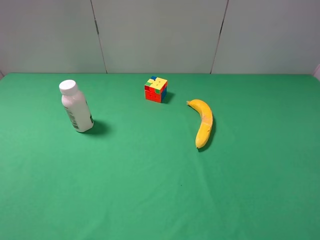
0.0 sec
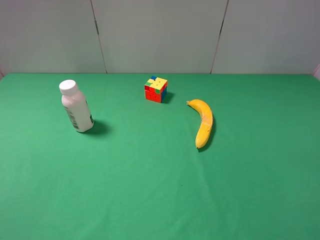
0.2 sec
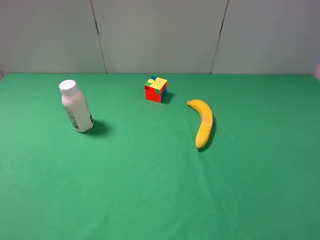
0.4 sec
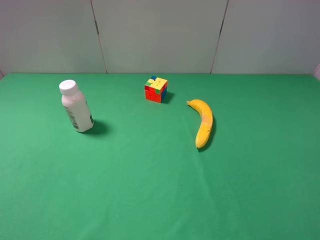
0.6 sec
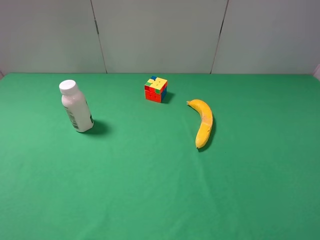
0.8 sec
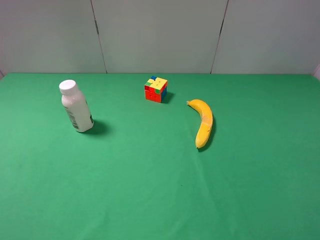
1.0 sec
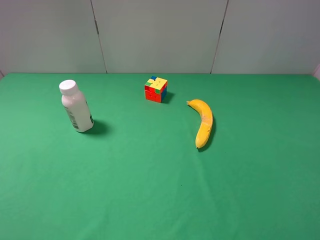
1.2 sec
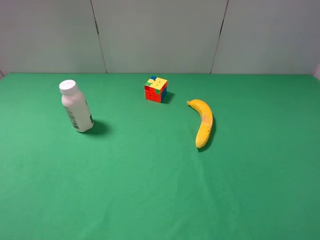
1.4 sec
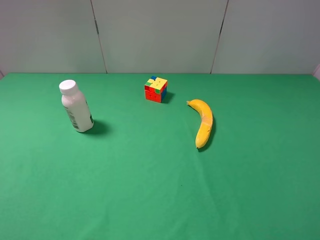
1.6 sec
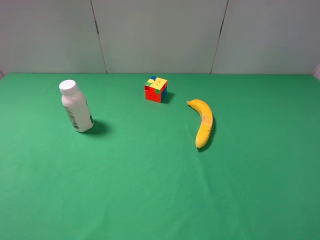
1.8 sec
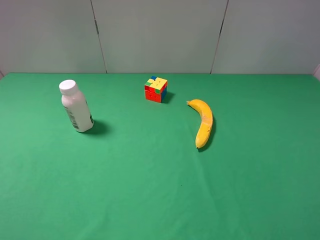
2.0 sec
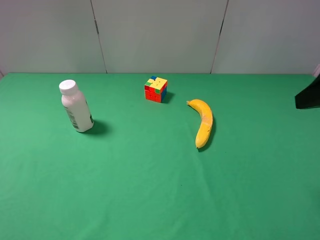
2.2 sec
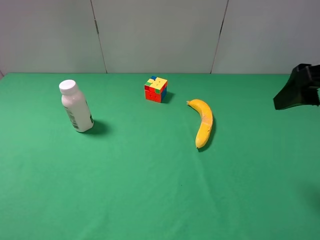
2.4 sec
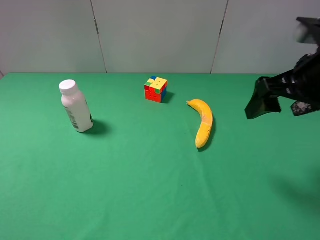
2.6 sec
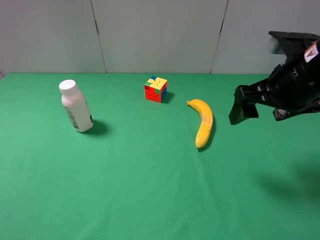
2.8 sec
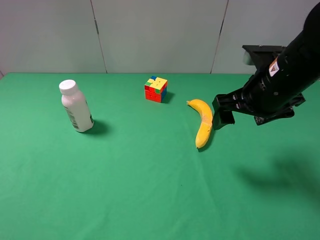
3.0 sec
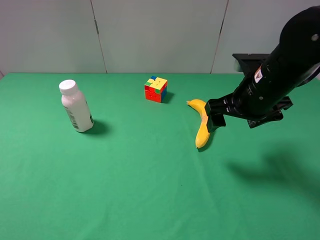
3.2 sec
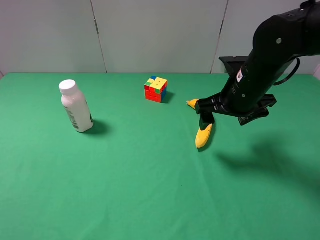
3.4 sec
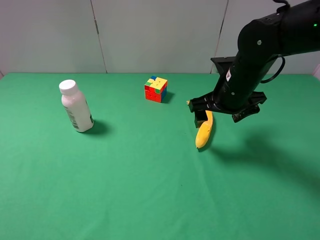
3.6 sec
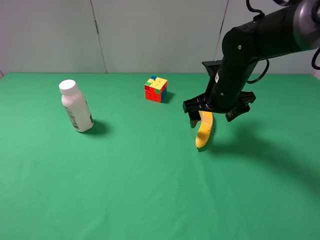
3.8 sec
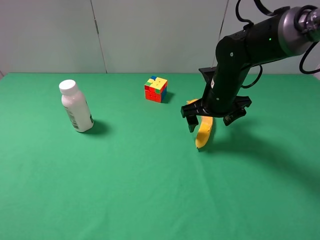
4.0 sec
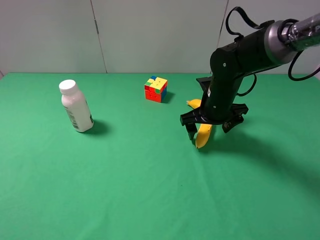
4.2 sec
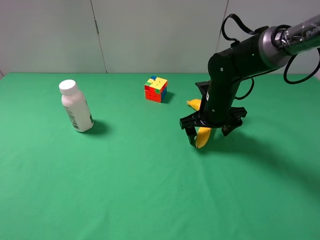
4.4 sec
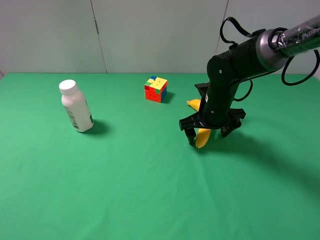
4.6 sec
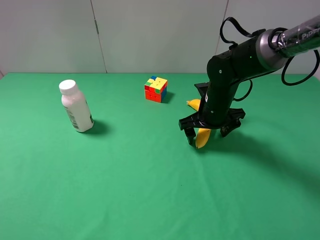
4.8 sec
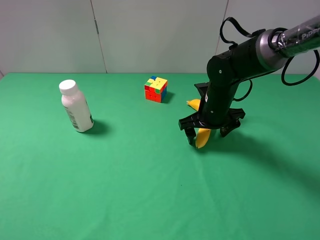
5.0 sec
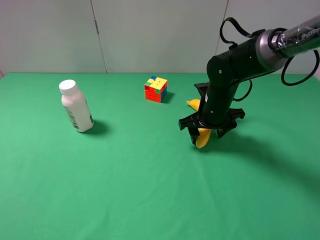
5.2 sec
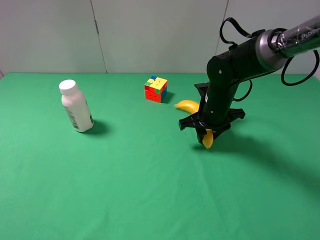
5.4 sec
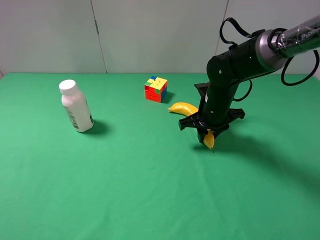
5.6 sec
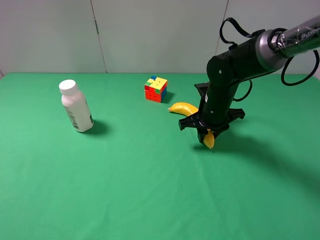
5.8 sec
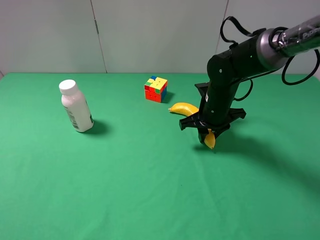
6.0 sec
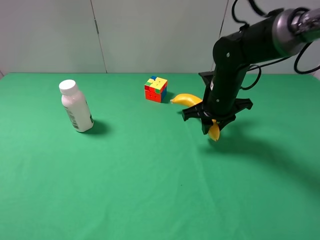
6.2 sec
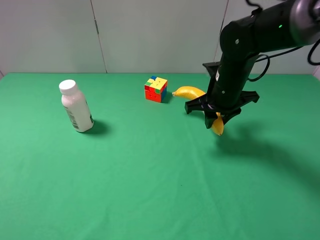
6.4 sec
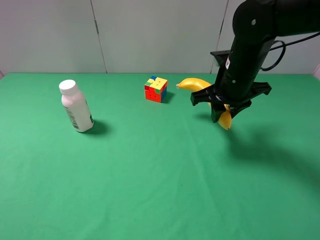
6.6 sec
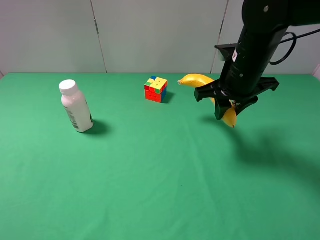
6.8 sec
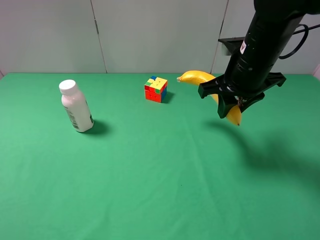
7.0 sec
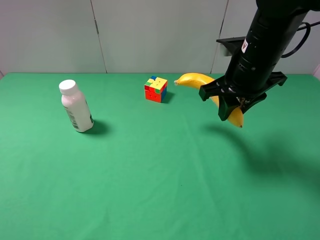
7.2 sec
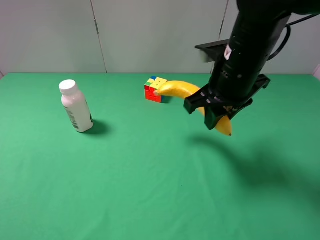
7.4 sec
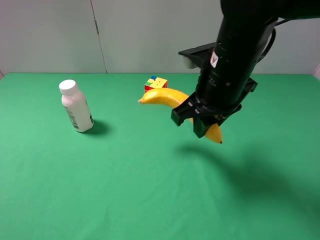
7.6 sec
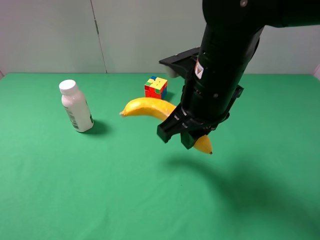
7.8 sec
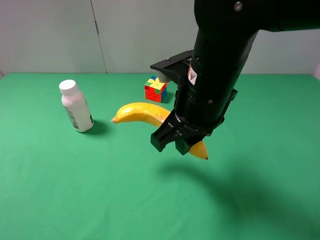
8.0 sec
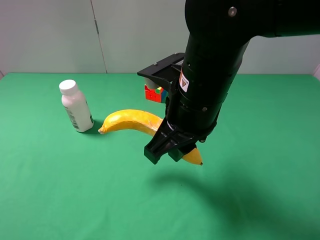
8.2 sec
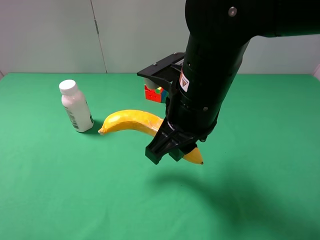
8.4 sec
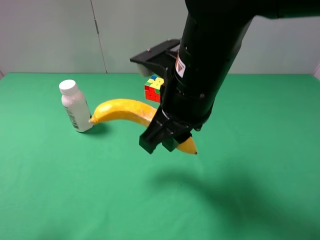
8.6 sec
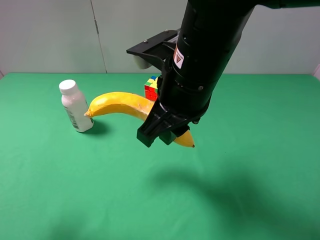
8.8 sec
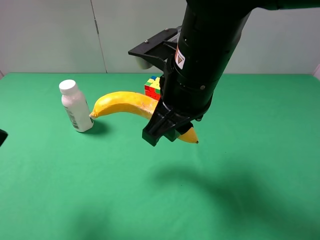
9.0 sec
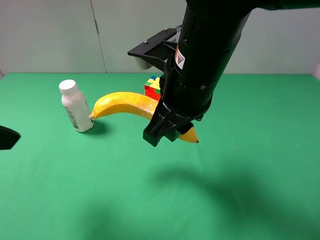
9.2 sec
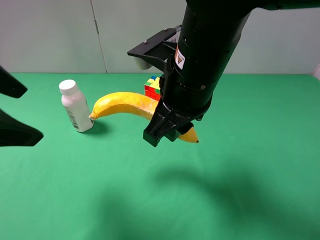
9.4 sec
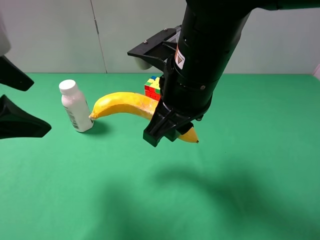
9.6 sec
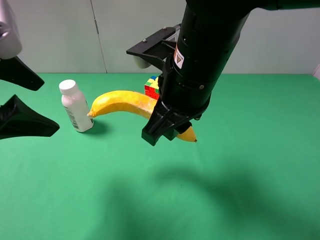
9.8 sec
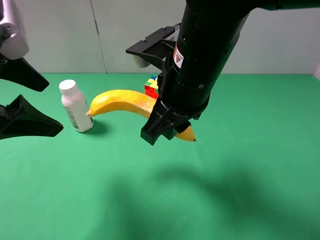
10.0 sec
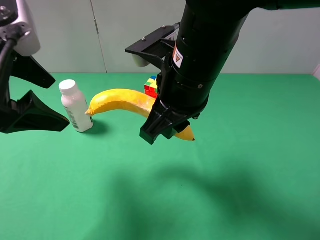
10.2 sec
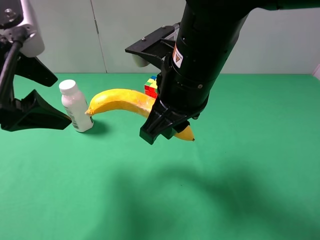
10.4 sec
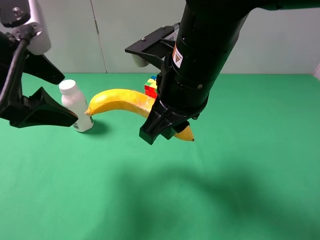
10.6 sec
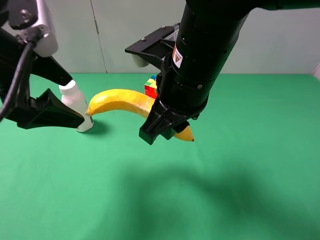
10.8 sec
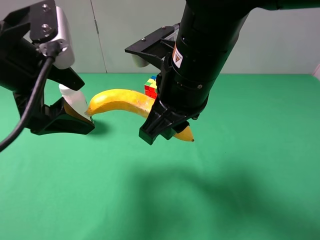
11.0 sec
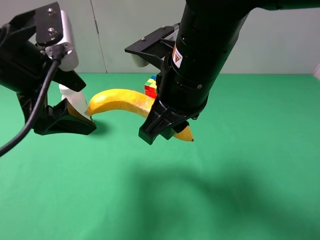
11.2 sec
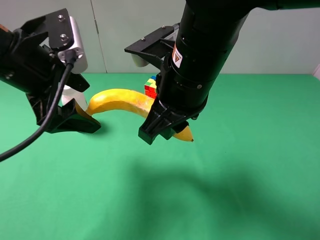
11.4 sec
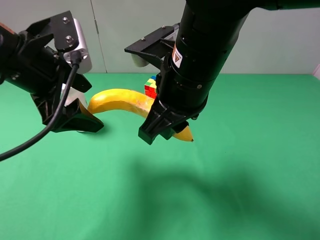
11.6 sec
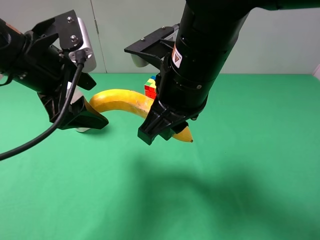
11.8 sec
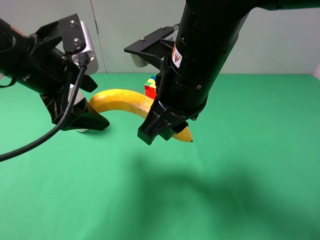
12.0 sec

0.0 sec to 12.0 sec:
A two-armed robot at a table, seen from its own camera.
Task of the whole recording: use the right gripper to pick up the item and transfer it from the right gripper to the left gripper.
1.6 sec to 3.0 sec: The right gripper moves forward and to the left, approximately 25 cm.
3.0 sec to 4.4 sec: The right gripper goes roughly 15 cm downward and forward.
4.4 sec to 6.0 sec: The right gripper closes up.
6.0 sec to 7.6 sec: The right gripper goes approximately 15 cm upward and backward.
7.6 sec to 9.0 sec: The right gripper changes place by some 5 cm. The left gripper moves forward and upward, roughly 15 cm.
9.0 sec to 10.4 sec: The left gripper heads forward, covering some 10 cm.
10.4 sec to 12.0 sec: The left gripper moves about 5 cm.

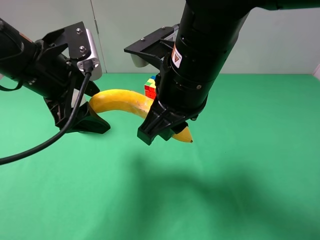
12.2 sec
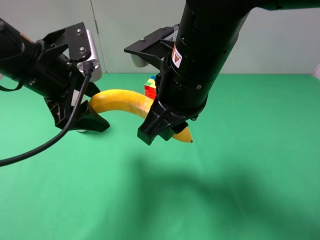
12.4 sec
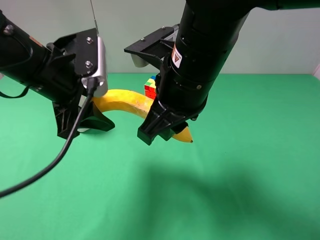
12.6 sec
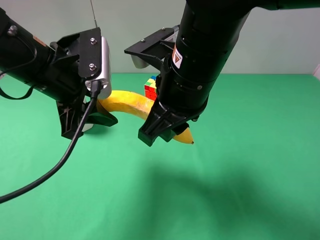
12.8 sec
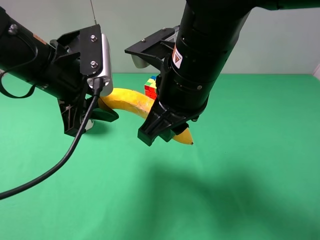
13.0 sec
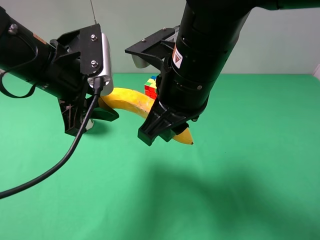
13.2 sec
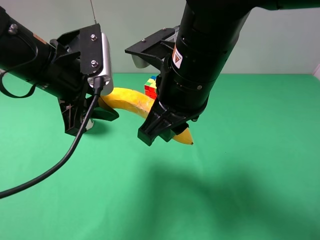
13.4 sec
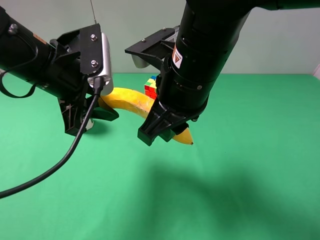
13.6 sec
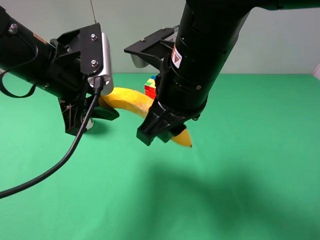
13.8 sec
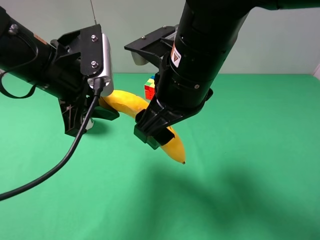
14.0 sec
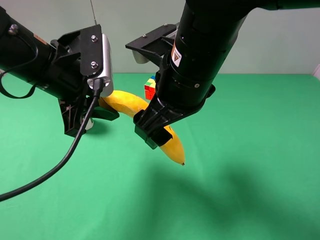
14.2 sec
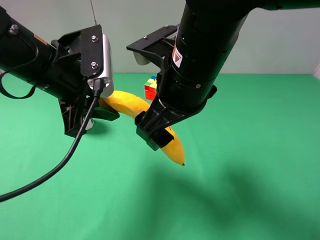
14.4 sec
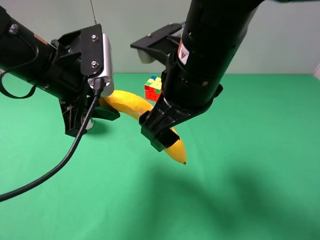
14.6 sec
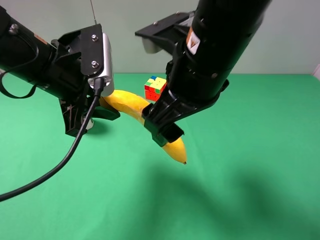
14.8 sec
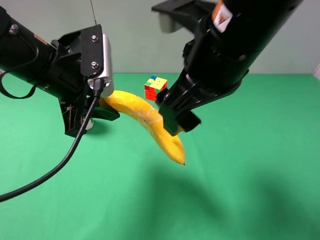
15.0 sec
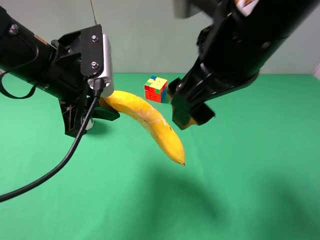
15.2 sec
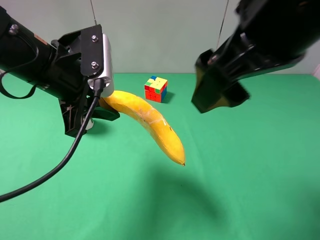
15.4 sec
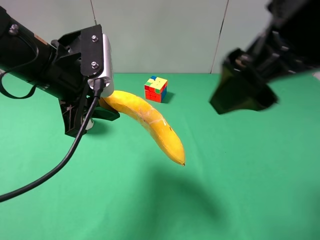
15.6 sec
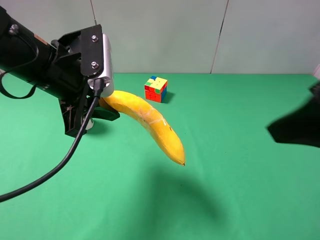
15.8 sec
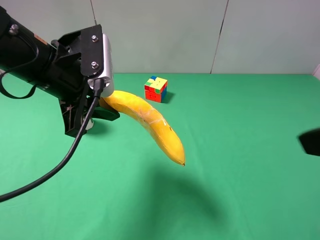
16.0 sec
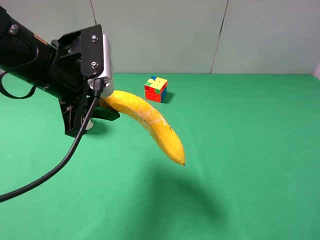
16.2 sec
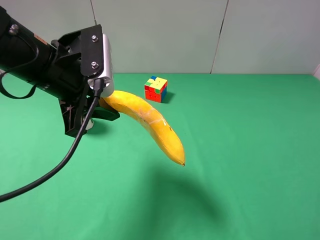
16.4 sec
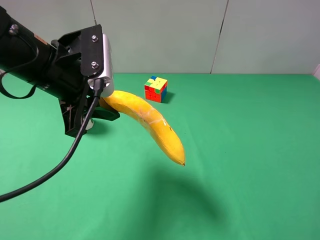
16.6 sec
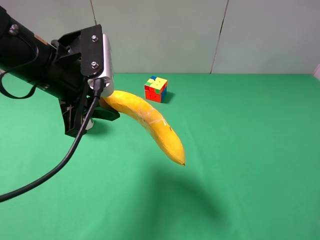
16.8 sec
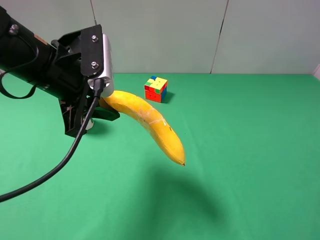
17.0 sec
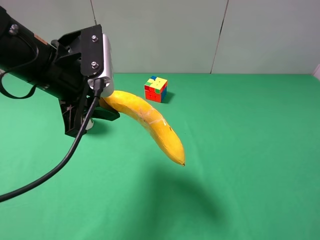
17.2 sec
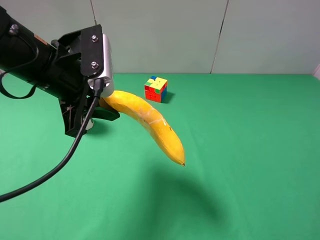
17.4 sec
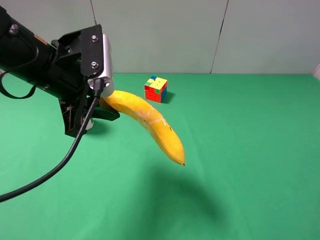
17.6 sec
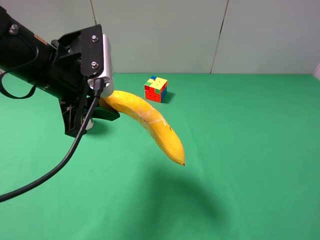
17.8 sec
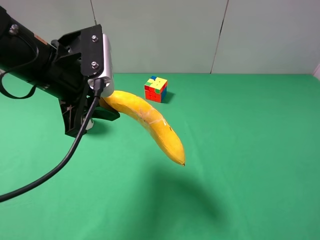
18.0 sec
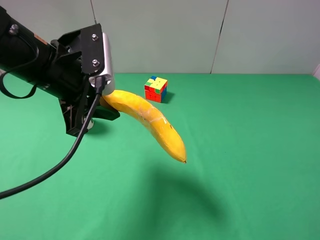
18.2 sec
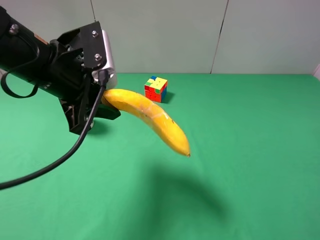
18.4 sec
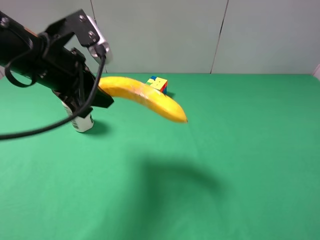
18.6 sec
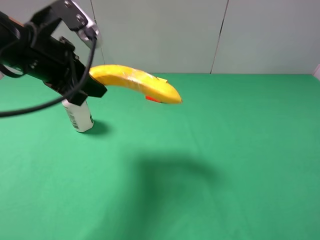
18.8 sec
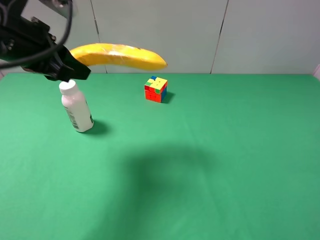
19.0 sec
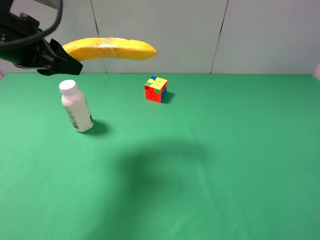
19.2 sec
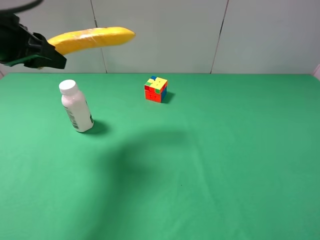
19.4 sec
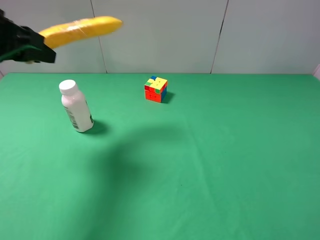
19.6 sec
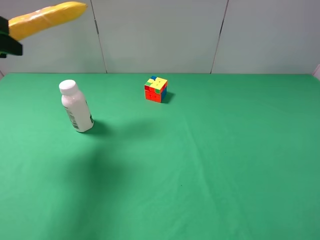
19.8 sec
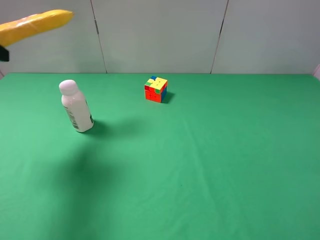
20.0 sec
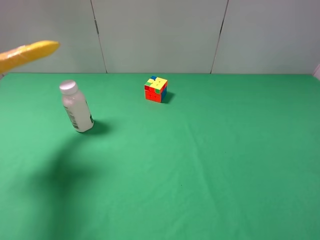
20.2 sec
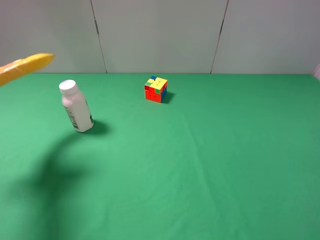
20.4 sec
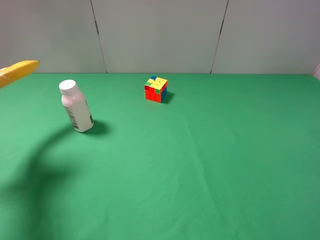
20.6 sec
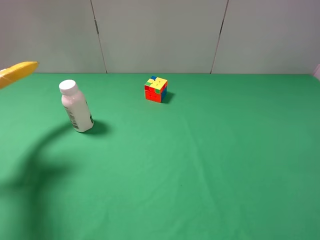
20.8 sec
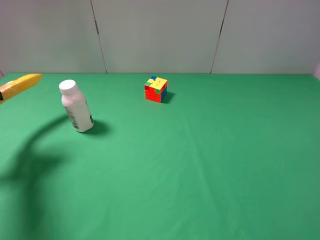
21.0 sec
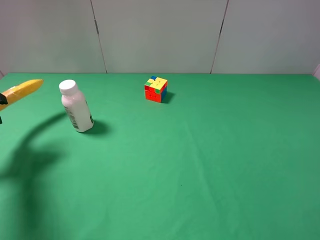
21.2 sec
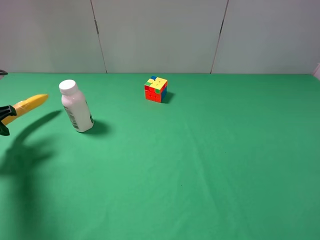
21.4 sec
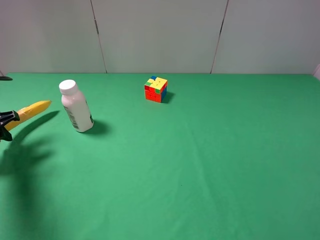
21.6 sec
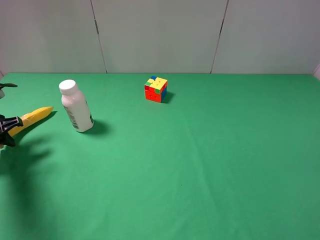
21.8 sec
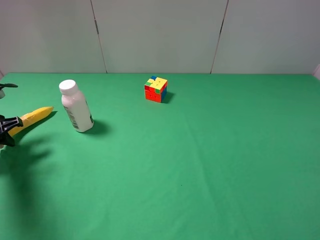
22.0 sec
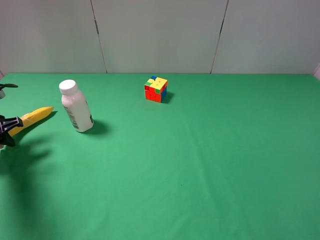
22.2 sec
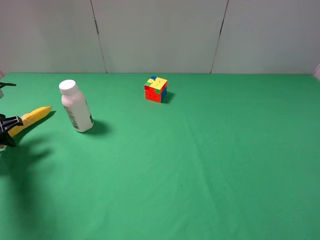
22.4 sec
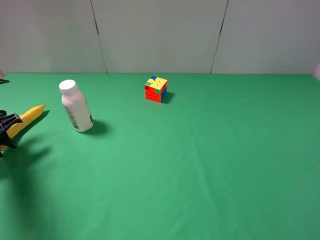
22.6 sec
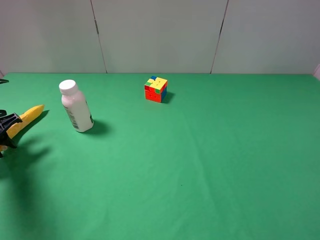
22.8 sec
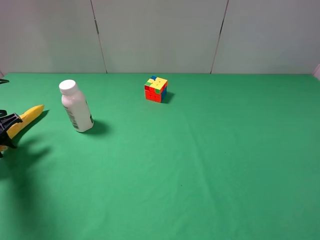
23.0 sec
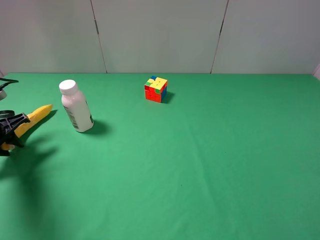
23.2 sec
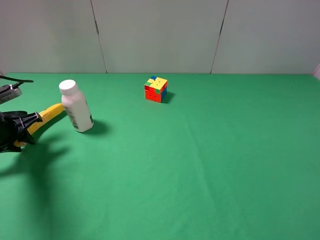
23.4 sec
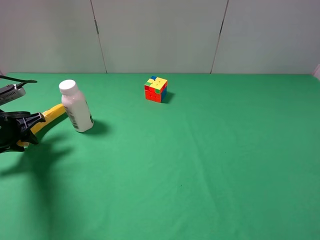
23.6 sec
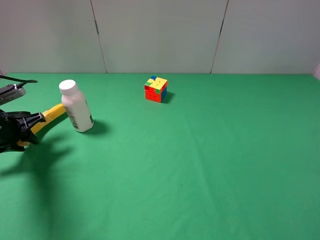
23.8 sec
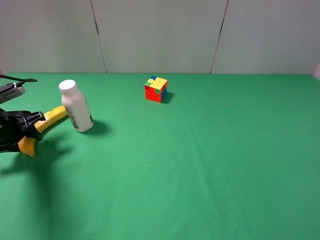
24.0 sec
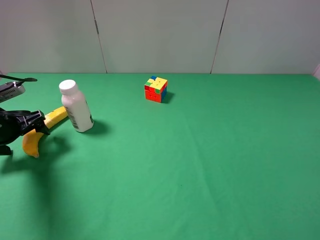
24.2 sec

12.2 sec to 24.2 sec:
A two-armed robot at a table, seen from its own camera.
Task of the whole recording: use the right gripper to pick up the item and transfer it from the right gripper to the left gripper.
Step, 12.2 sec to 14.2 sec: Pass the banana to the left gripper.
Step, 14.4 sec to 24.0 sec: The left gripper places banana on the left side of the table.
12.2 sec to 13.8 sec: The left gripper closes.
13.8 sec to 15.2 sec: The right gripper goes about 10 cm upward and to the right, and opens its fingers.
15.2 sec to 16.6 sec: The right gripper is displaced to the right and backward by approximately 25 cm.
18.2 sec to 19.8 sec: The left gripper moves to the left, some 15 cm.
19.8 sec to 21.2 sec: The left gripper travels downward and to the left by about 15 cm.
21.2 sec to 22.6 sec: The left gripper travels downward by some 5 cm.
22.6 sec to 24.2 sec: The left gripper opens its fingers.
